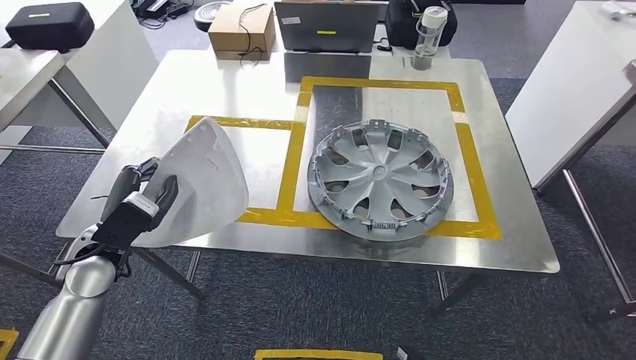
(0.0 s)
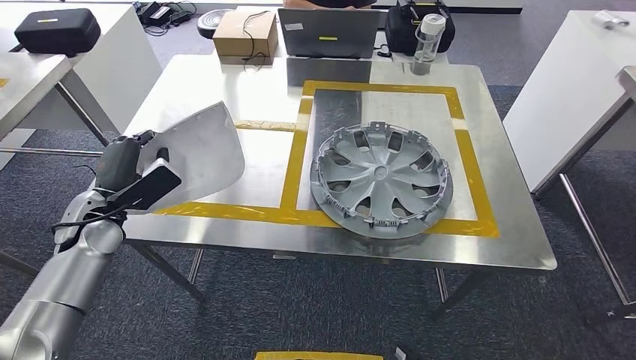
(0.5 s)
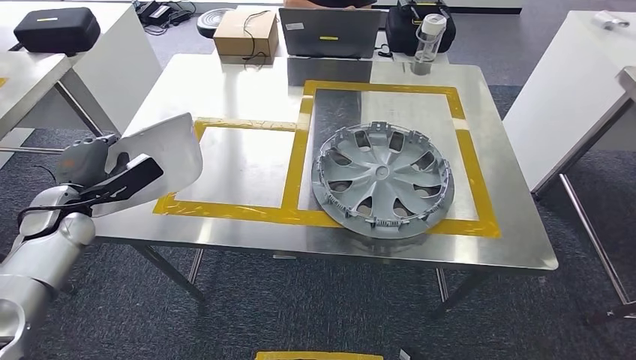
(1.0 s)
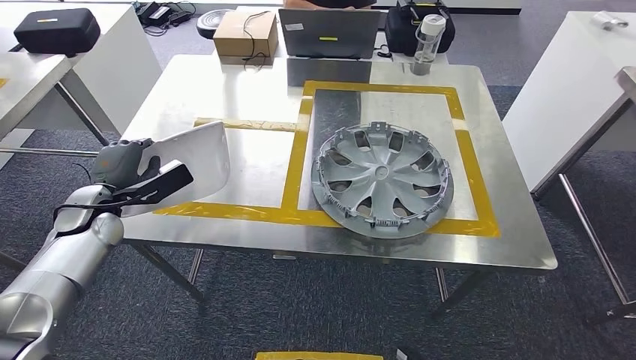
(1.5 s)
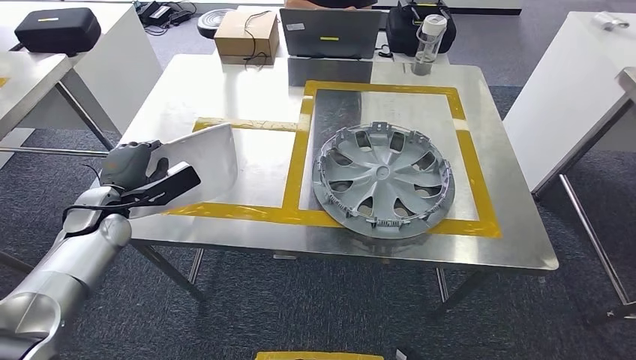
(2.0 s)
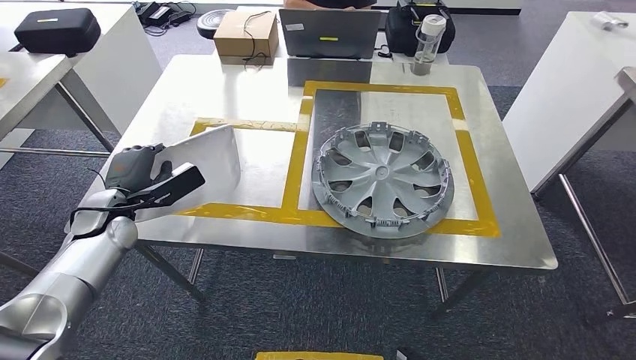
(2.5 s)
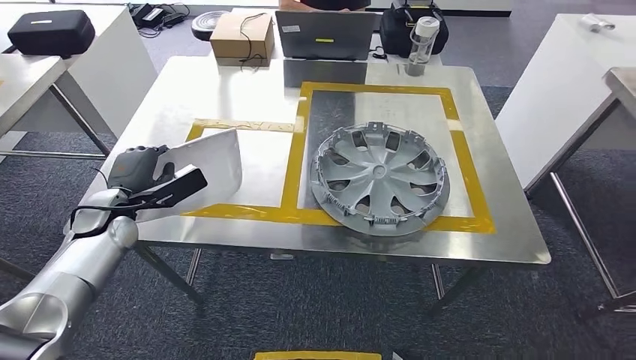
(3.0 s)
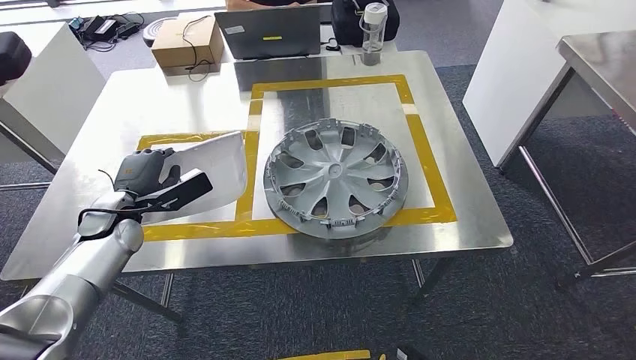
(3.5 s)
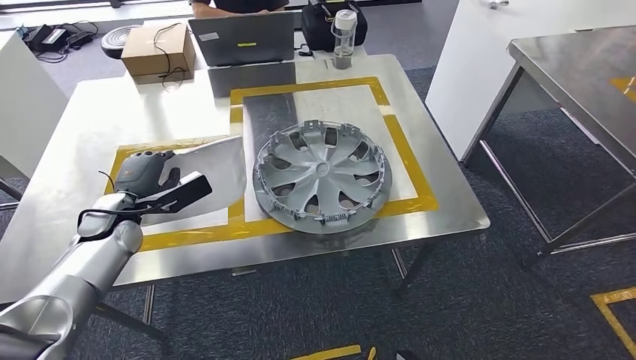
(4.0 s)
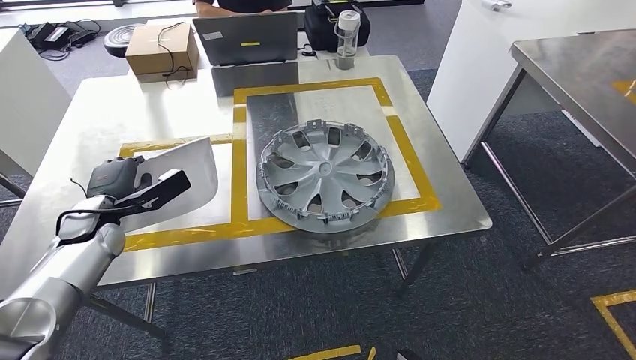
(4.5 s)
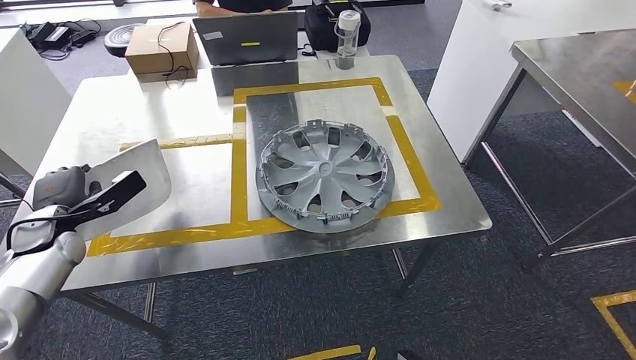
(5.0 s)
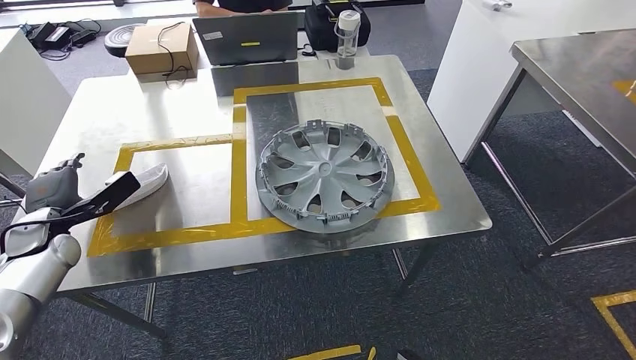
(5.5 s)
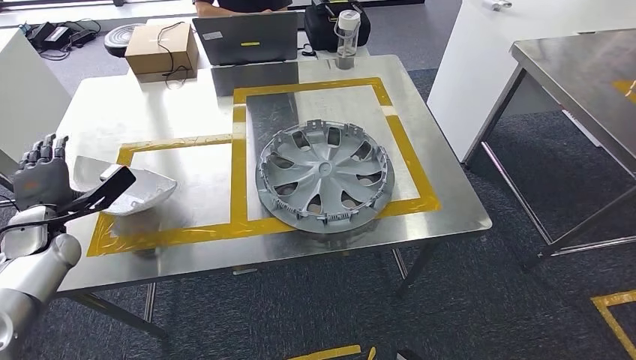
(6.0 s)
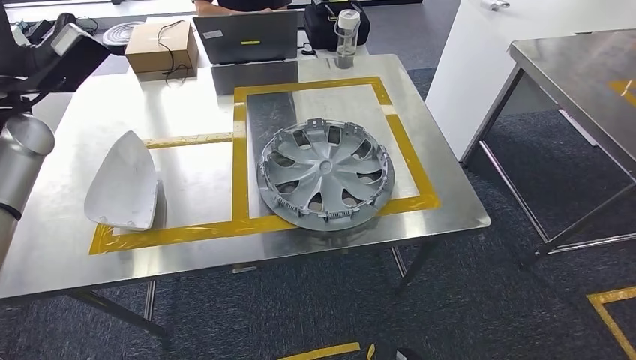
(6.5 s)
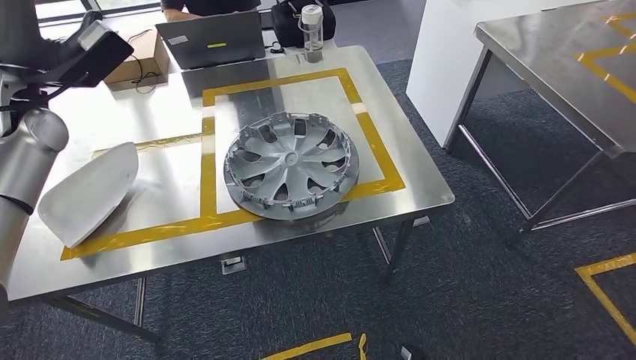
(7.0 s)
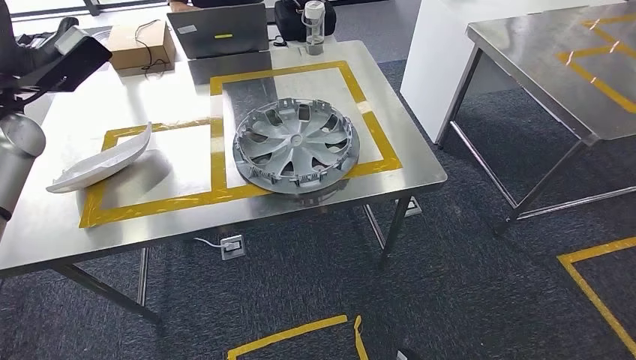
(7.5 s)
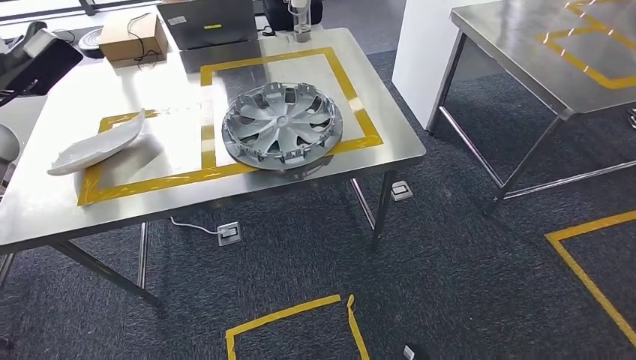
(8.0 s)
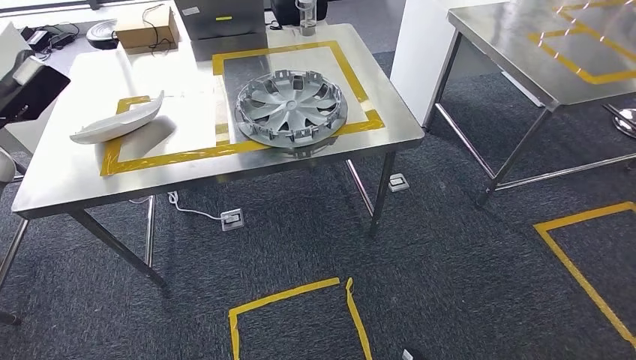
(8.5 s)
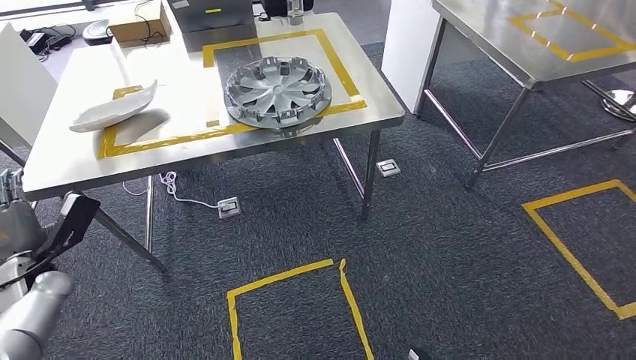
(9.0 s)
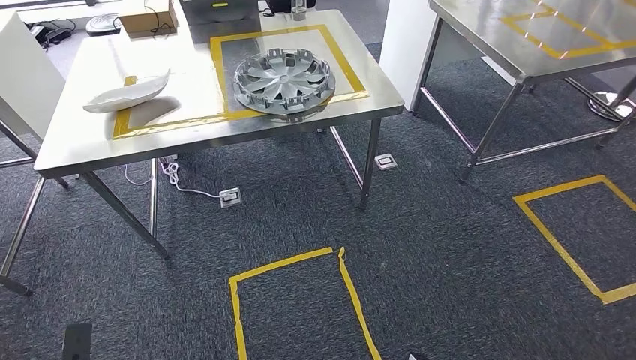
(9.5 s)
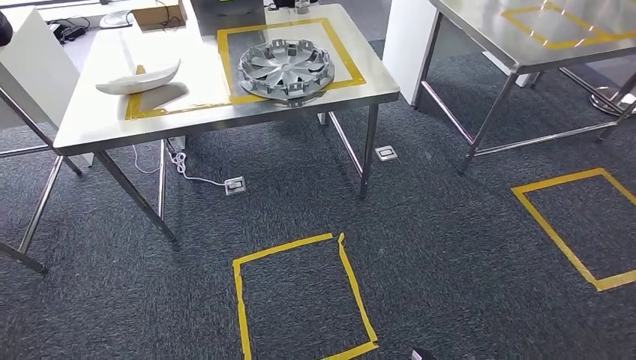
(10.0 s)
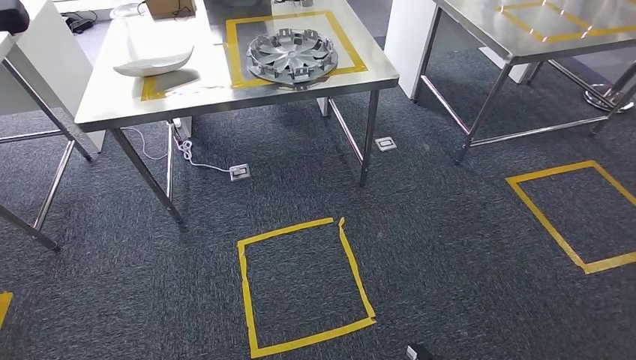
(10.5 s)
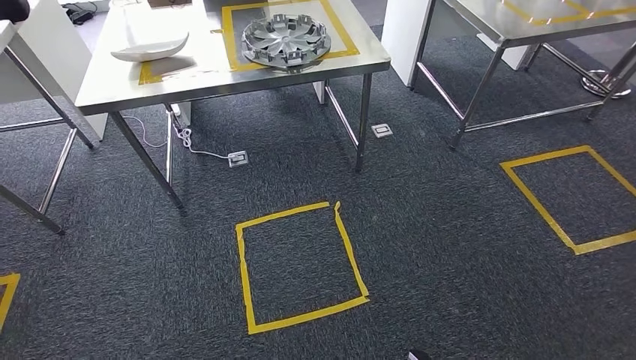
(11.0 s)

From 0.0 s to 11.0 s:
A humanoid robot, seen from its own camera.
Step, from 0.0 s to 7.0 s: Insert the small parts into the corresponding holes on the workbench.
Step, from 8.0 s to 11.0 s: Move to the initial position of the workbench.
